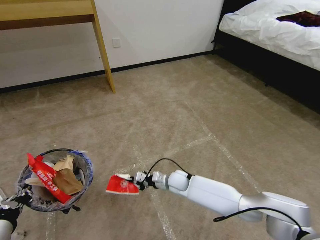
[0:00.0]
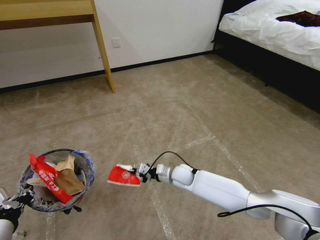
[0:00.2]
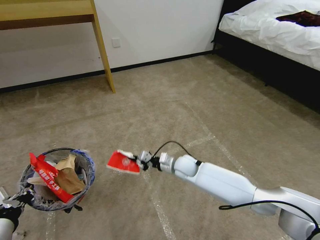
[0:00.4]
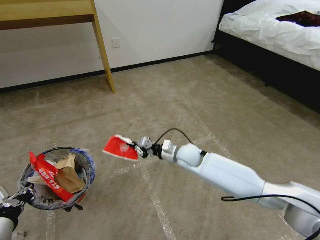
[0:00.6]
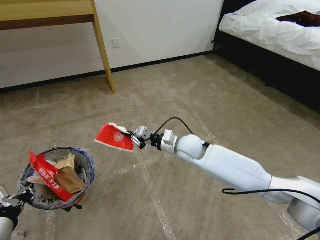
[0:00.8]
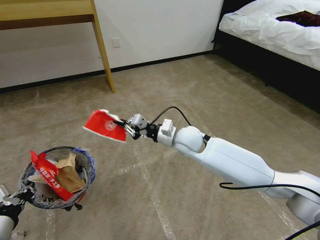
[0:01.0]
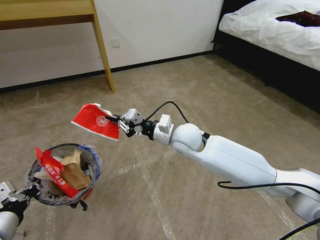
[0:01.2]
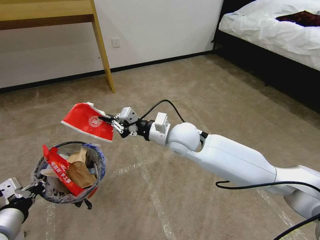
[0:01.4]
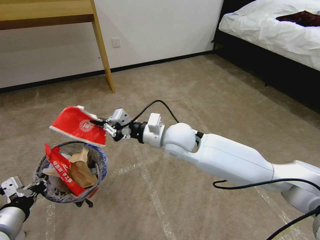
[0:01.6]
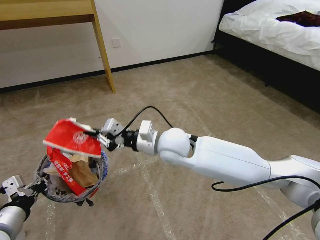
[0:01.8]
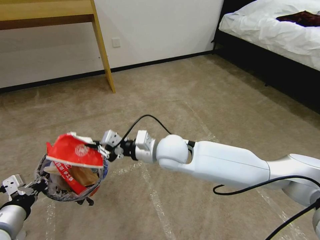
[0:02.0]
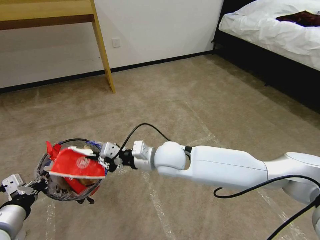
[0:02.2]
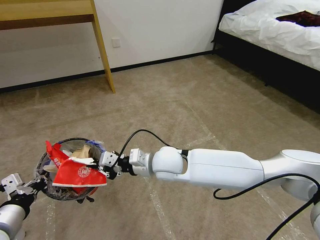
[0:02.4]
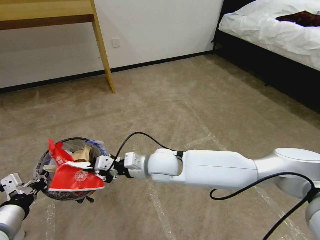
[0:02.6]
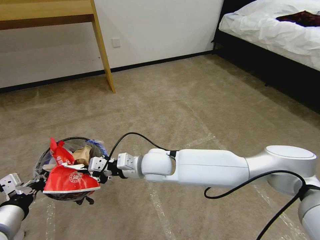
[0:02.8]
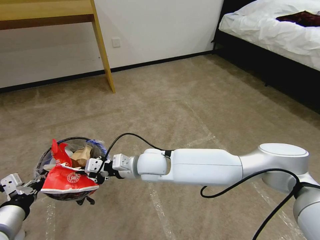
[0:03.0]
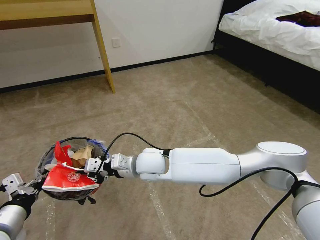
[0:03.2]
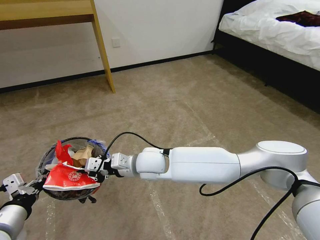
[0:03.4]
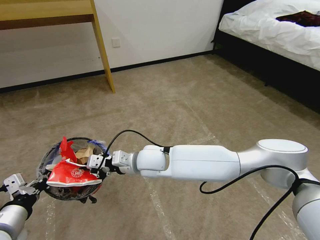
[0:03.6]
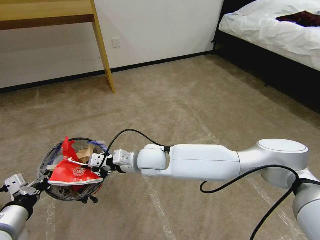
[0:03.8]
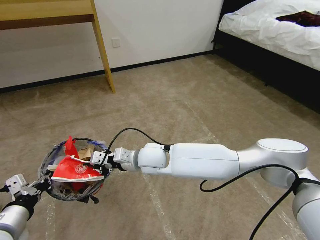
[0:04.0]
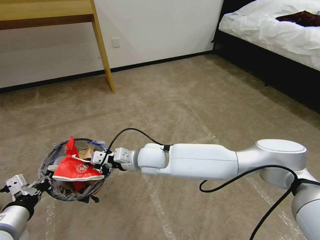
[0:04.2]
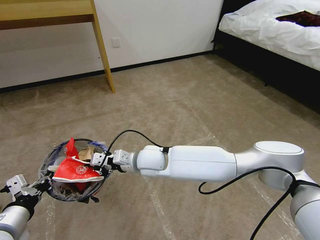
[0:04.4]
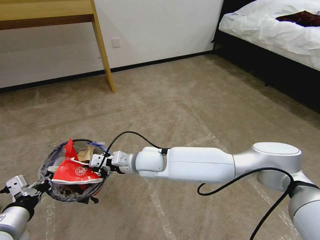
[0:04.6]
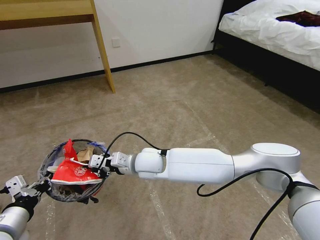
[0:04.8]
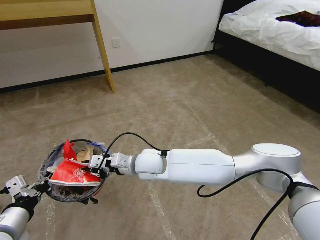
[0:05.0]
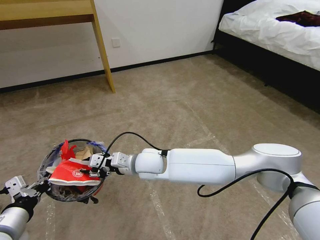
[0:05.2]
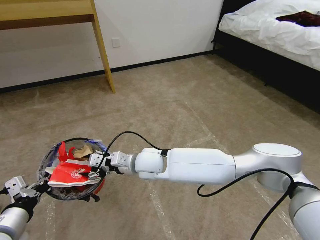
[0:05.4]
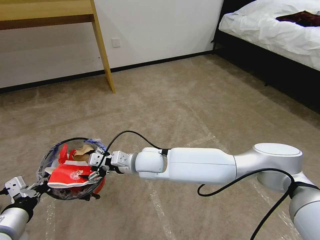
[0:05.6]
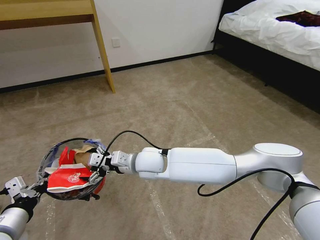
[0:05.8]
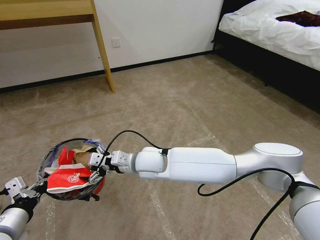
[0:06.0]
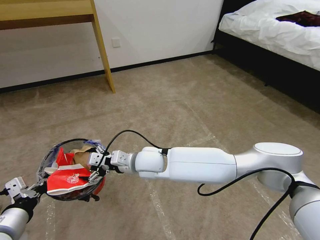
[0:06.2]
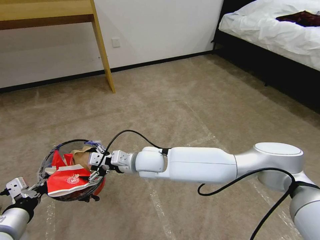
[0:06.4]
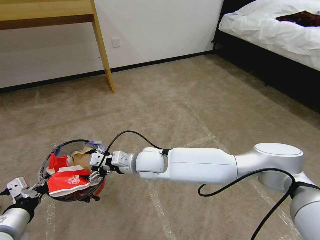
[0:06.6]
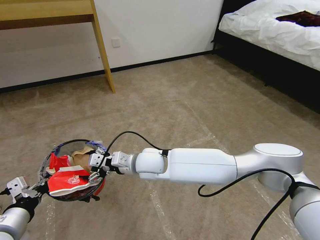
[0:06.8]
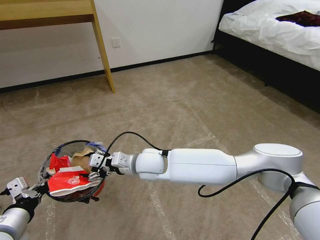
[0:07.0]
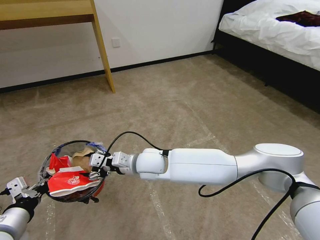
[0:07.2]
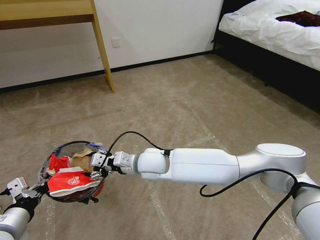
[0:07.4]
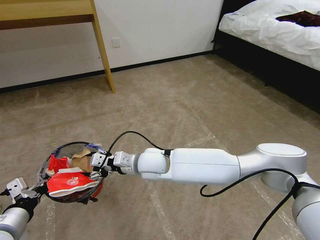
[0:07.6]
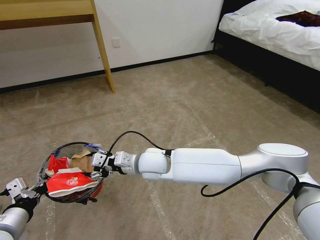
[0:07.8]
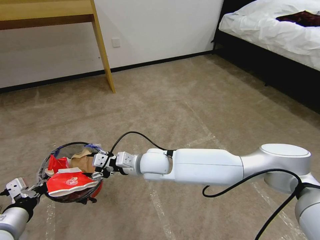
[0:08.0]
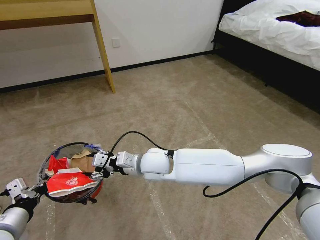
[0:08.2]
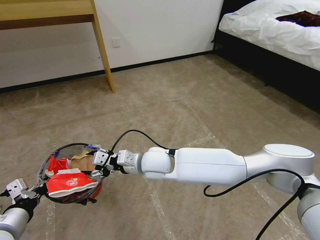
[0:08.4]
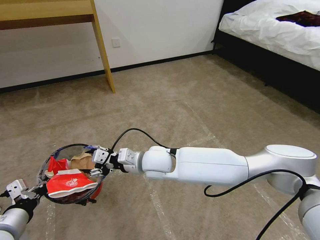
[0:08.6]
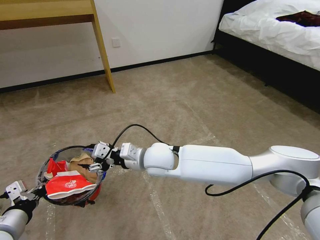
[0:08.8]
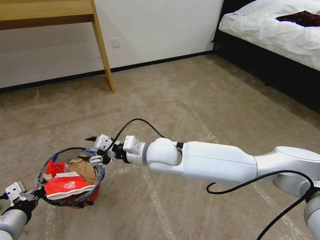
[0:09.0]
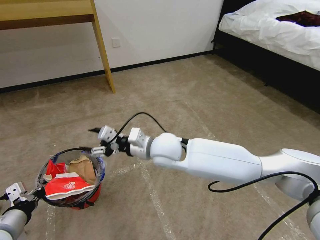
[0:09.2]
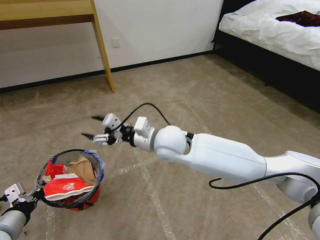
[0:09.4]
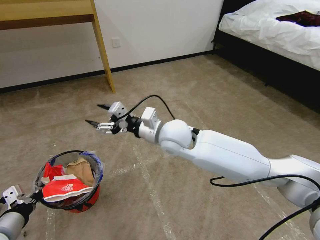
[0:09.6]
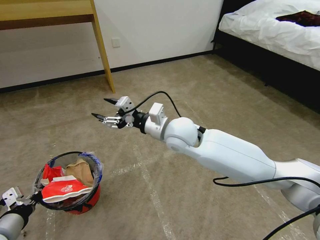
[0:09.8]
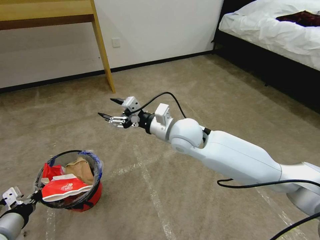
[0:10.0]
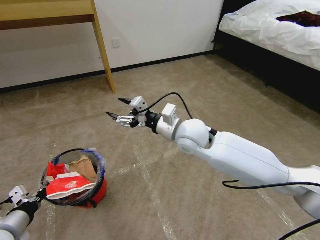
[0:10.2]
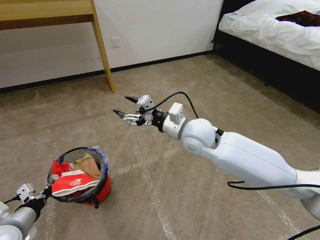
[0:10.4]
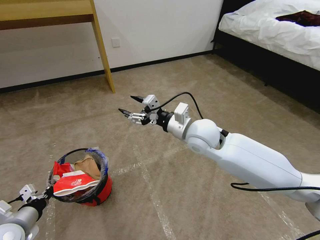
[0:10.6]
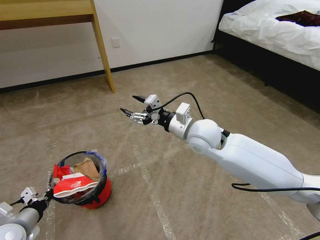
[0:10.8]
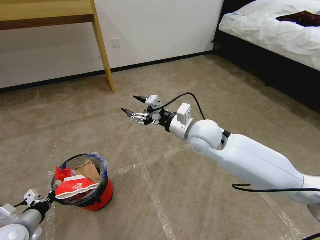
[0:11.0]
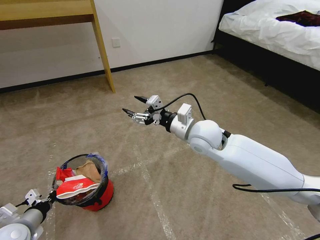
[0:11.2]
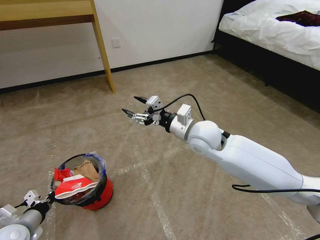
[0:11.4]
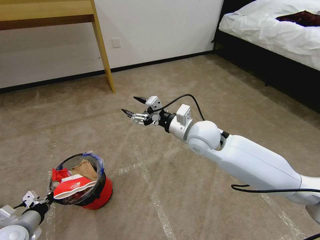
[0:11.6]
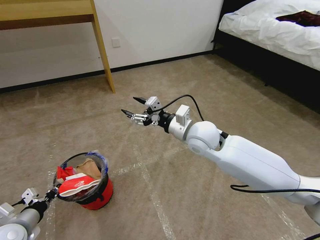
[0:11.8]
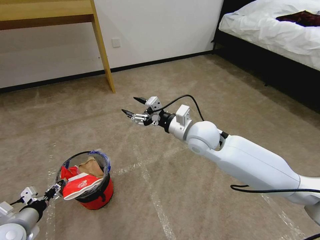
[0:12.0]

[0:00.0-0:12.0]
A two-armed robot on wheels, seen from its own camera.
Task of the whole recording: Pick up the trash bin and place the garbage on the floor into it.
0:00.0 to 0:01.6: The right gripper goes some 30 cm upward.
0:01.6 to 0:03.0: The right gripper shifts roughly 10 cm to the left and downward.
0:03.0 to 0:04.4: The grippers make only small movements.
0:04.4 to 0:06.0: The right gripper opens its fingers.
0:06.0 to 0:07.6: Both grippers stay about where they are.
0:07.6 to 0:09.0: The right gripper ends up about 5 cm from where it was.
0:09.0 to 0:10.4: The right gripper heads to the right and upward, covering roughly 10 cm.
0:10.4 to 0:12.0: The left gripper opens up.

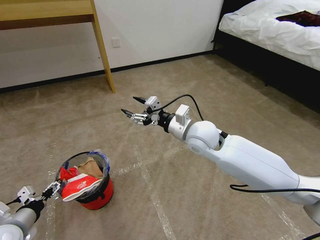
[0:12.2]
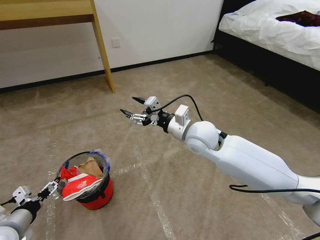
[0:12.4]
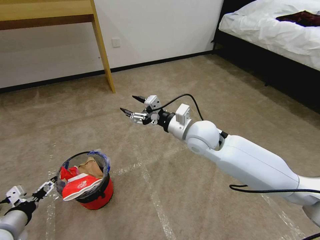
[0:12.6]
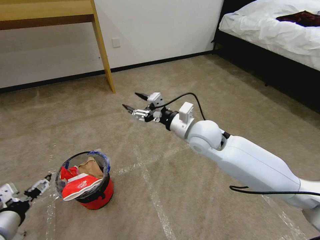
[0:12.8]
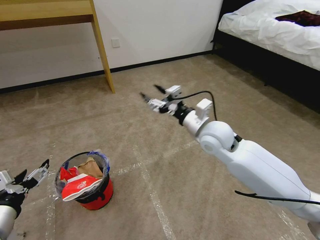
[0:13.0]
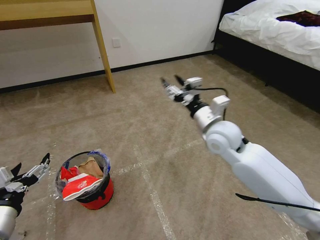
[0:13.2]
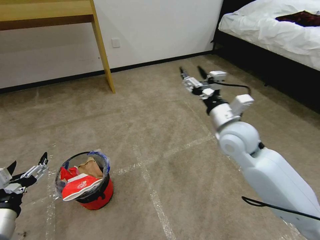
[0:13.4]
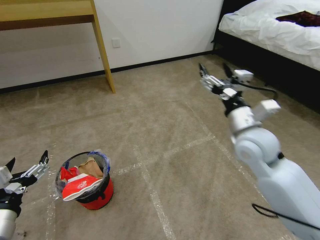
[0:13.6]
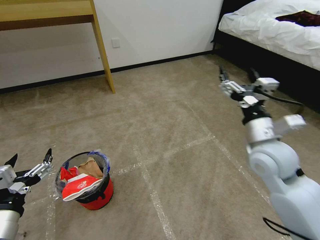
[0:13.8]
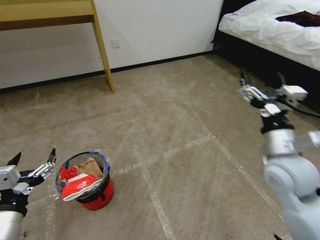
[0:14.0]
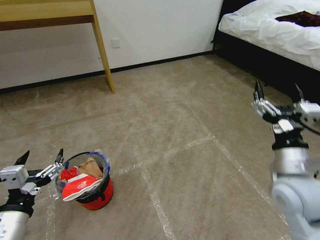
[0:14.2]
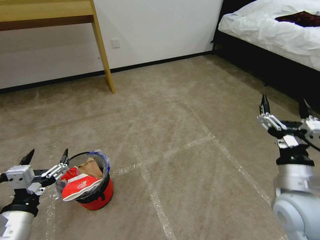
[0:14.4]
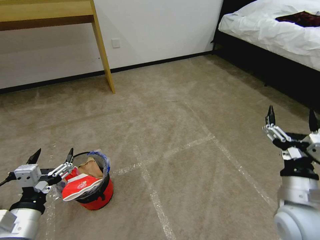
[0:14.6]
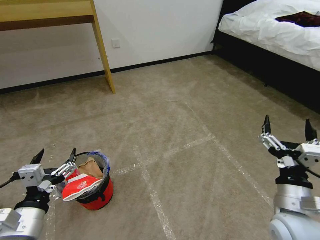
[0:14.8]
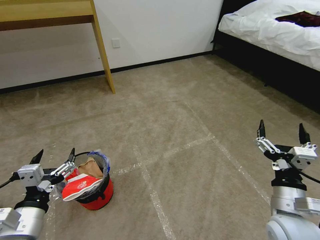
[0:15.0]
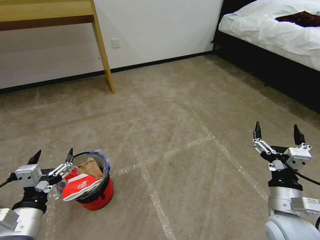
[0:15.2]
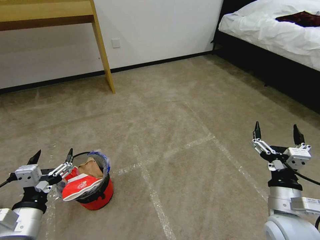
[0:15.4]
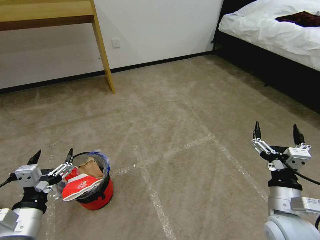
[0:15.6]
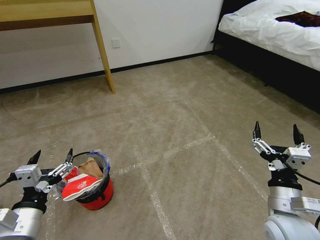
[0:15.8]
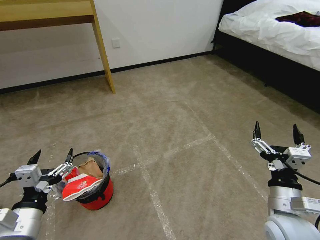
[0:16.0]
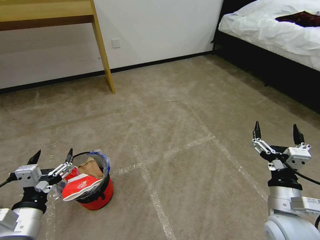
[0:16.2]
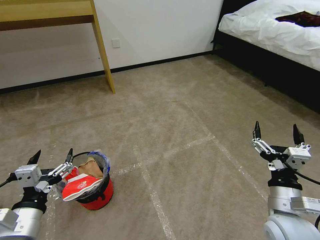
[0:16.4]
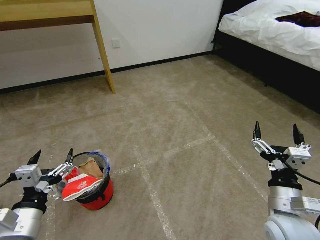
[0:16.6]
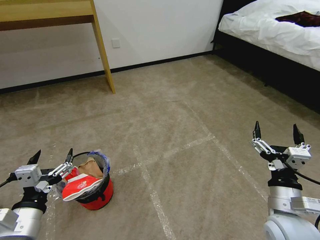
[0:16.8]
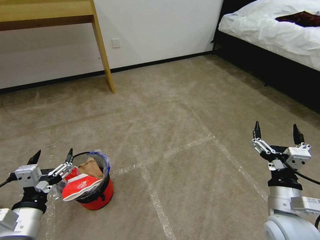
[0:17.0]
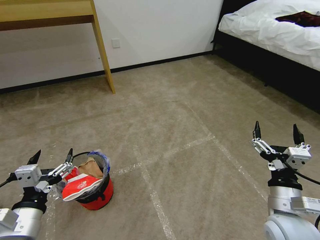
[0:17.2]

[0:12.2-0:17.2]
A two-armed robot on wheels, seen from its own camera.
Task of the whole recording: Pick up the trash bin and place the garbage on the floor into it.
0:12.2 to 0:13.8: The right gripper shifts about 20 cm to the right and backward. Meanwhile the left gripper goes approximately 15 cm upward, to the right and backward.
0:13.8 to 0:15.6: The right gripper moves backward and downward, some 15 cm.
0:15.6 to 0:17.2: Both grippers stay put.
